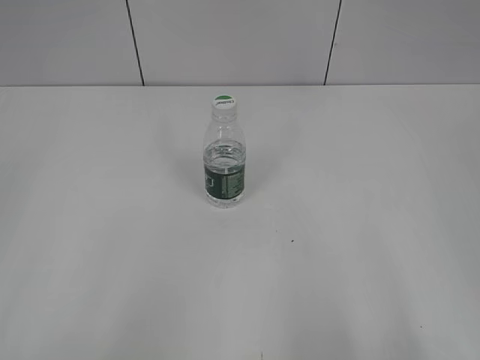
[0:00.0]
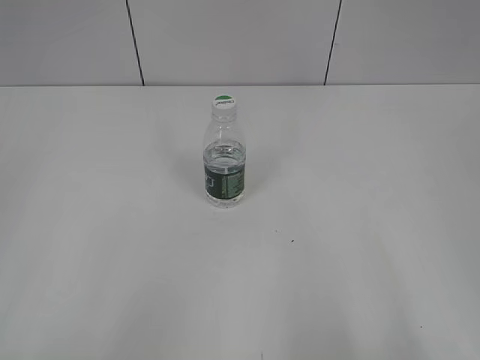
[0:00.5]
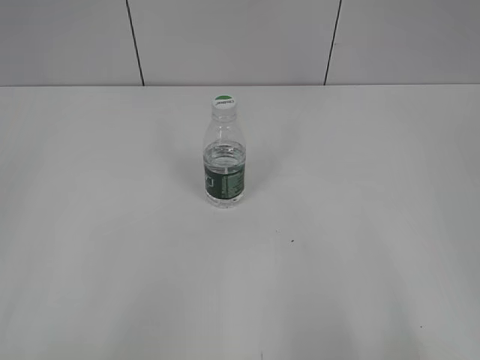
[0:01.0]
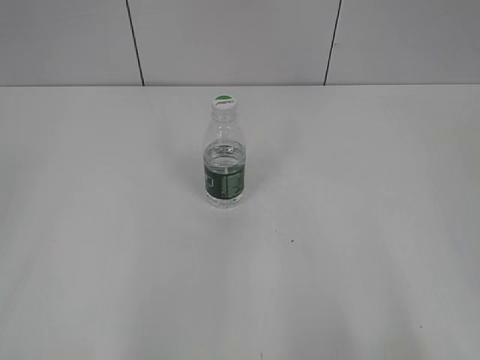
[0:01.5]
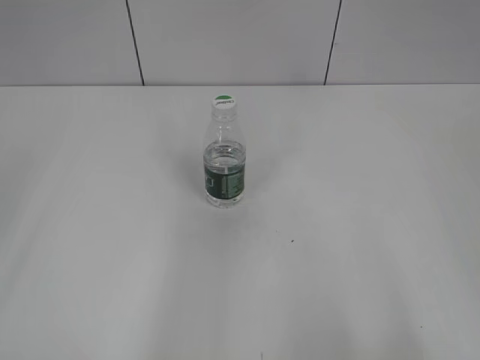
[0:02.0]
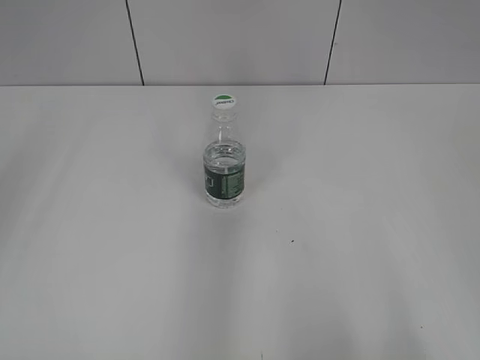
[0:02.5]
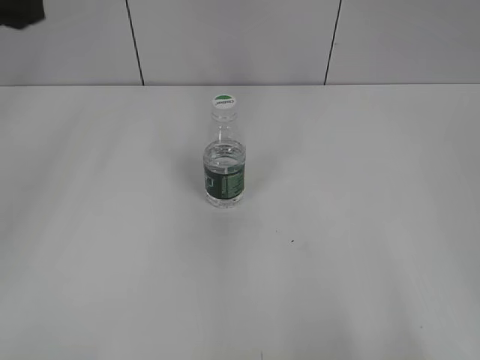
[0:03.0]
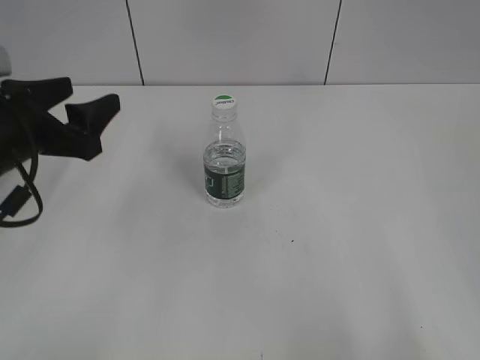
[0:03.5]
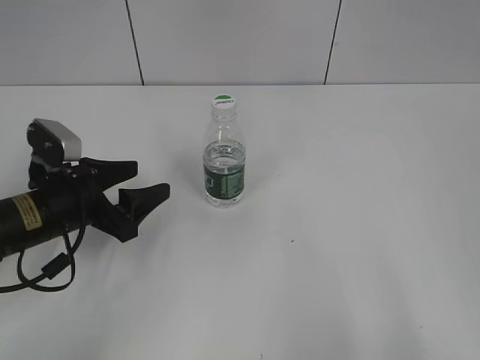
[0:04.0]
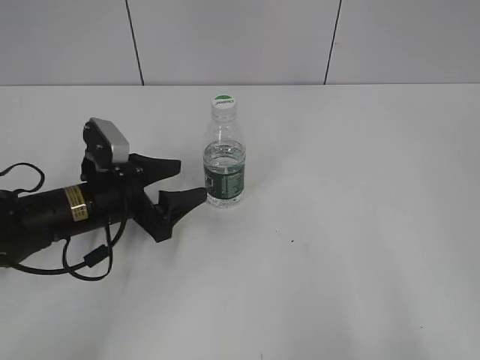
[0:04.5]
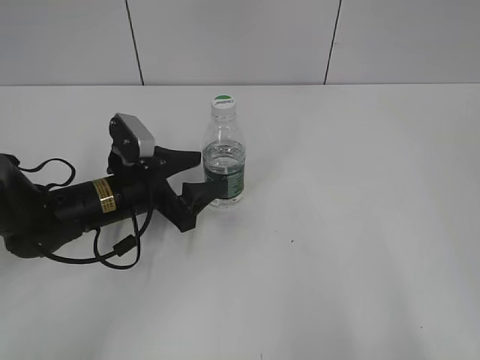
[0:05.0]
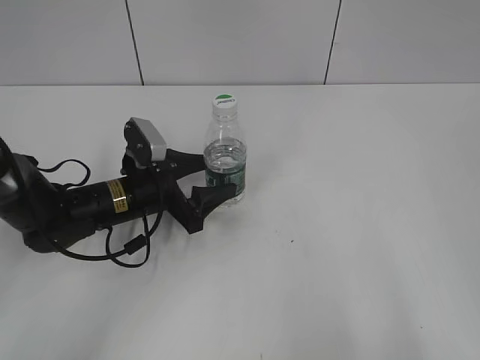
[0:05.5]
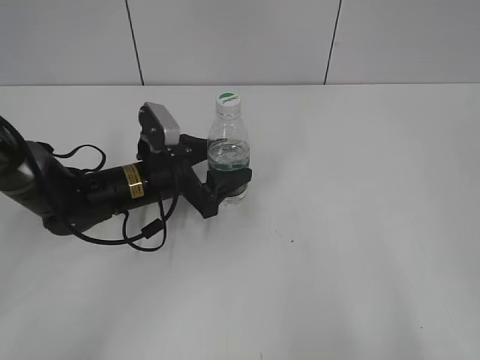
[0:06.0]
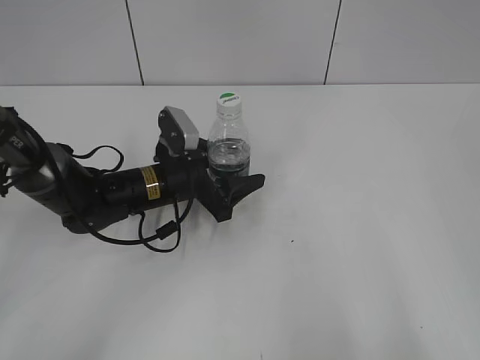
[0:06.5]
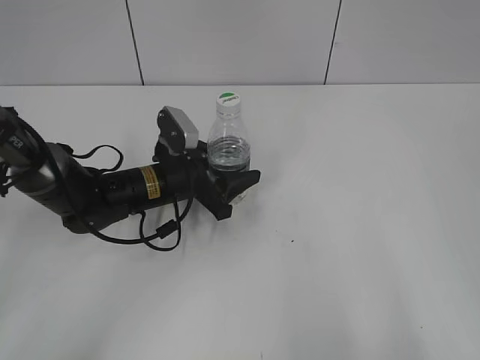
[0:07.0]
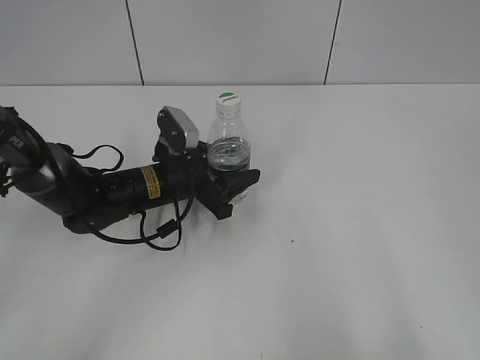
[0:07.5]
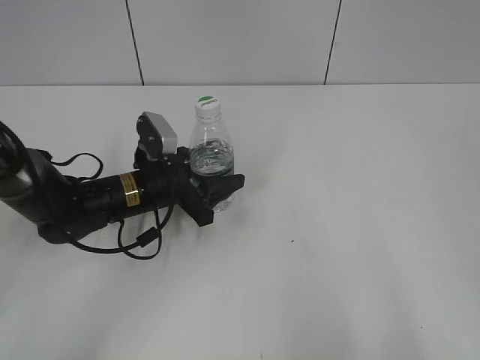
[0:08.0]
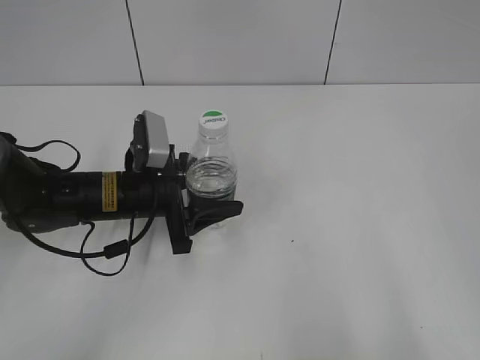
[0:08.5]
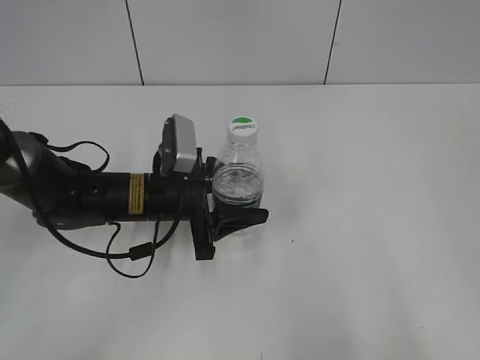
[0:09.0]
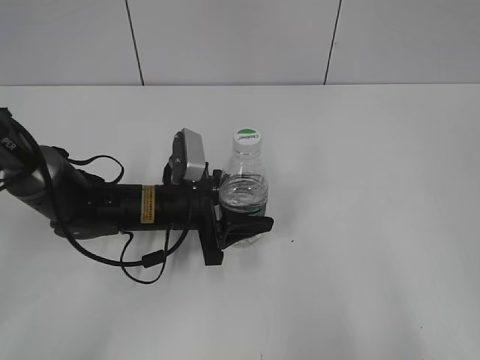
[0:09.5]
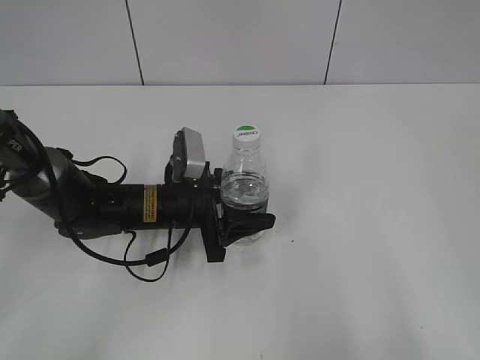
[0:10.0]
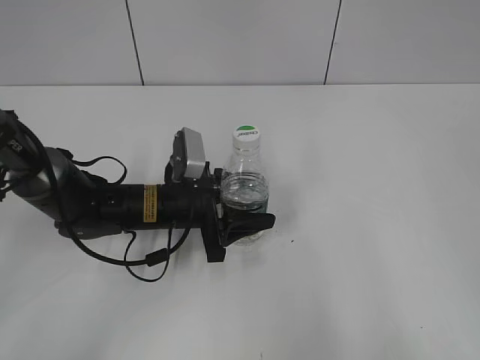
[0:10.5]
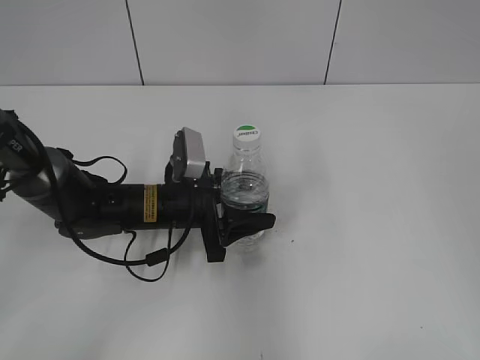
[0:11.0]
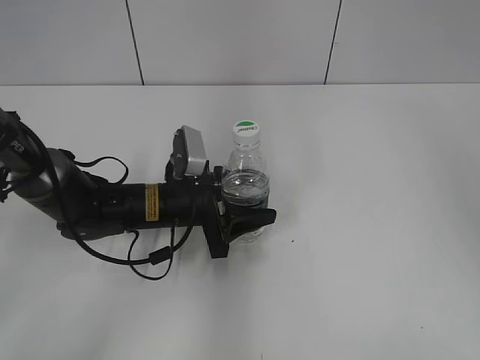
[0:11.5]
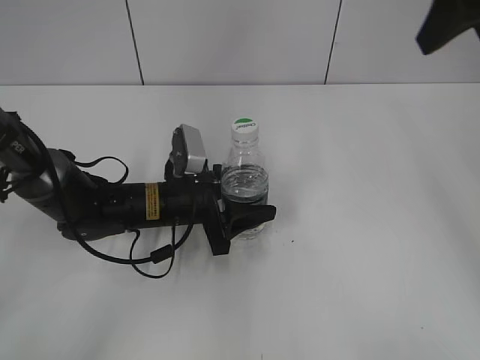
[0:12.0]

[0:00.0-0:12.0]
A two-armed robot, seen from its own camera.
Step, 0:00.0 to 0:07.0: Grasp the bottle and move it to the center of the table with the left gripper.
0:02.0 to 0:04.0: The left gripper is displaced downward and forward by about 35 cm.
0:04.0 to 0:06.0: The left gripper moves to the right and forward, approximately 10 cm.
0:06.0 to 0:08.0: The left gripper closes its fingers.
0:10.0 to 0:12.0: The right gripper moves forward, approximately 30 cm.

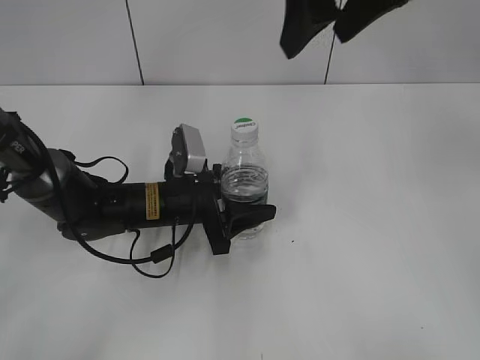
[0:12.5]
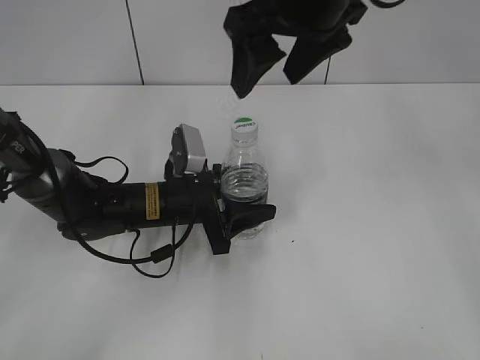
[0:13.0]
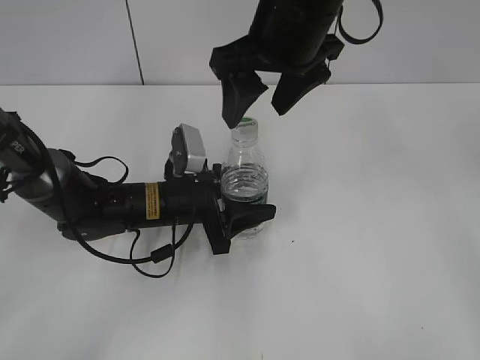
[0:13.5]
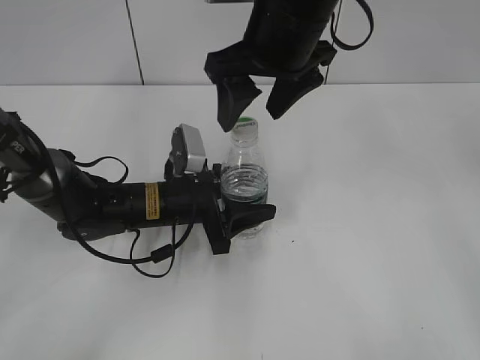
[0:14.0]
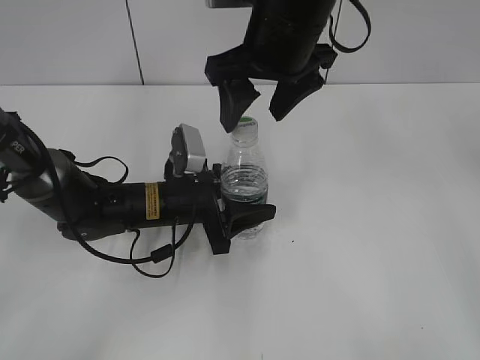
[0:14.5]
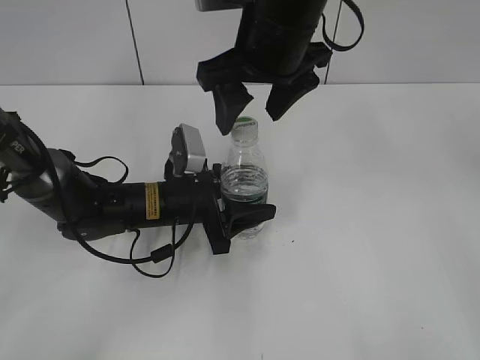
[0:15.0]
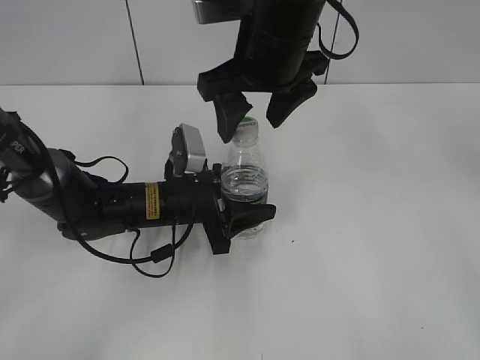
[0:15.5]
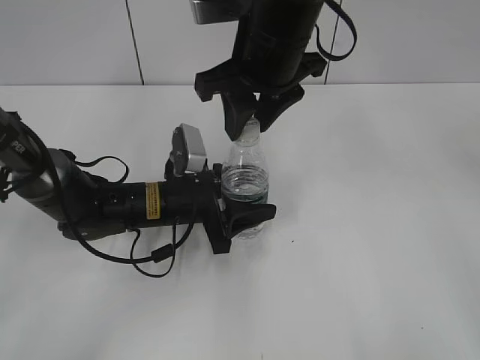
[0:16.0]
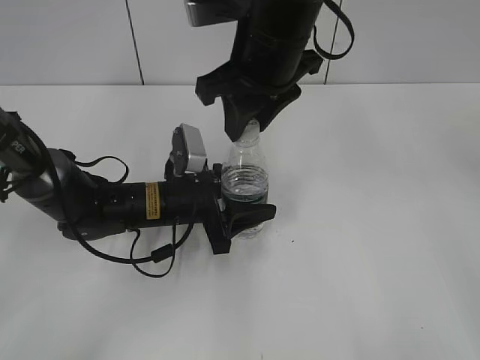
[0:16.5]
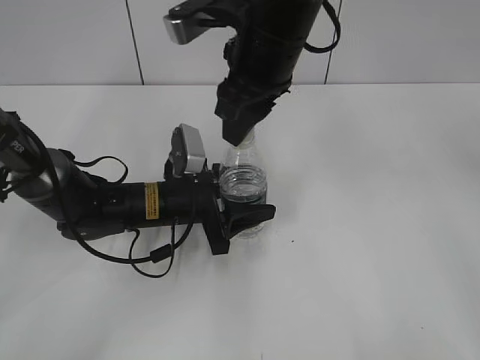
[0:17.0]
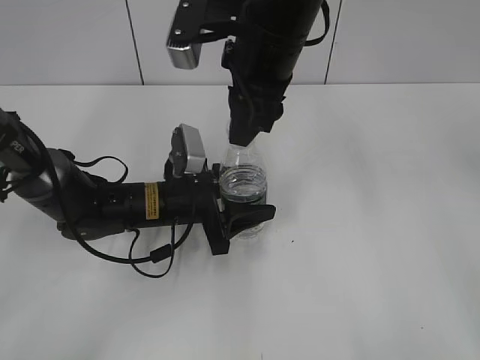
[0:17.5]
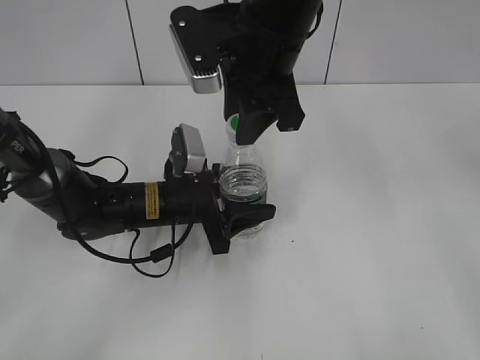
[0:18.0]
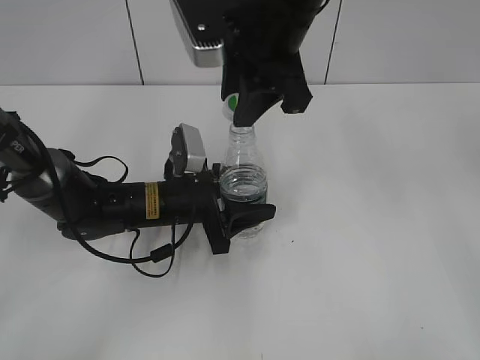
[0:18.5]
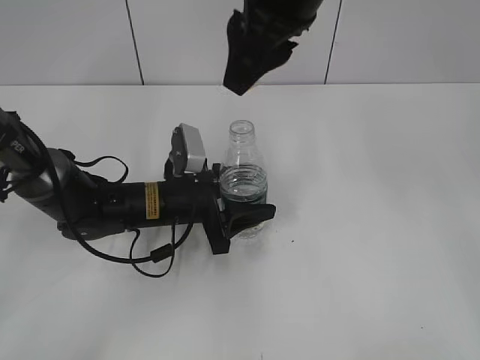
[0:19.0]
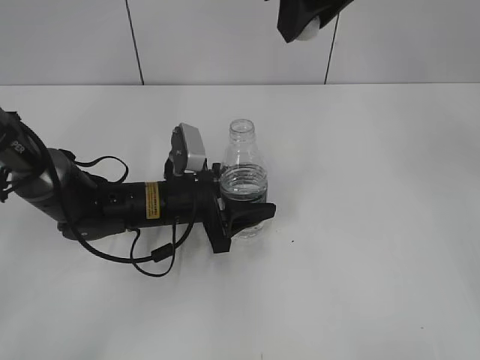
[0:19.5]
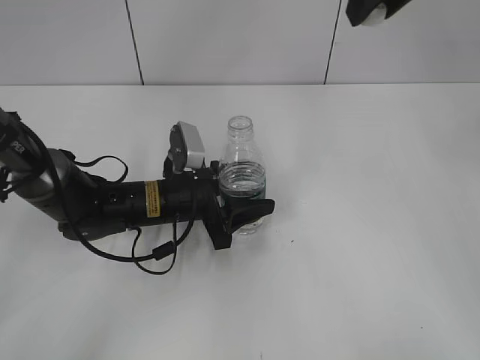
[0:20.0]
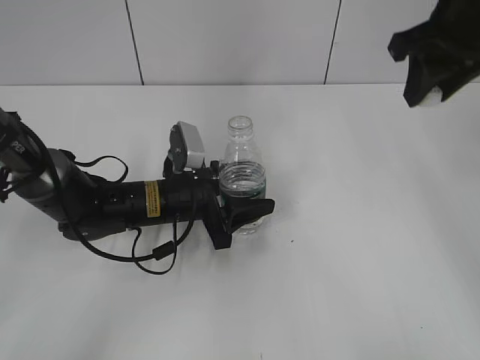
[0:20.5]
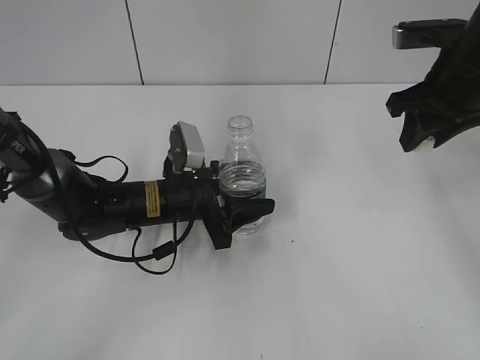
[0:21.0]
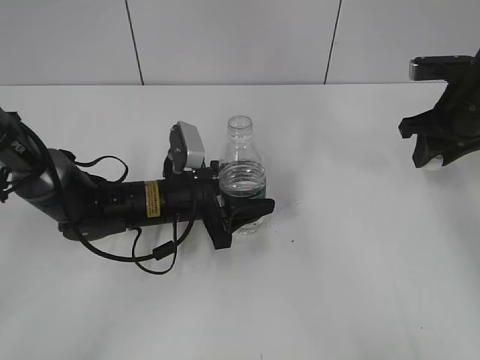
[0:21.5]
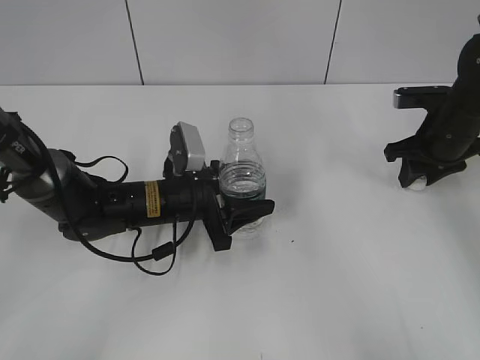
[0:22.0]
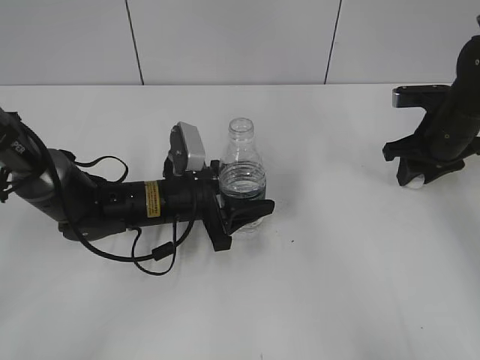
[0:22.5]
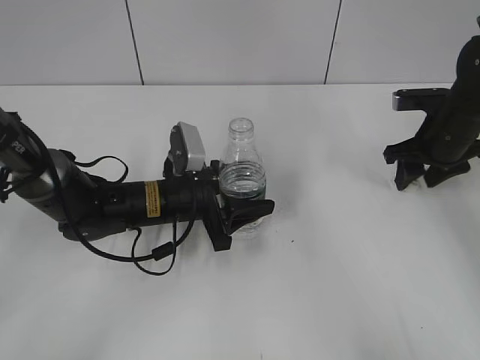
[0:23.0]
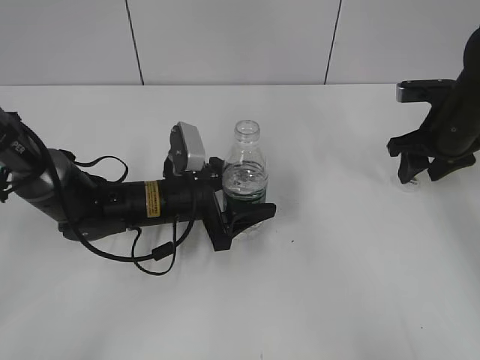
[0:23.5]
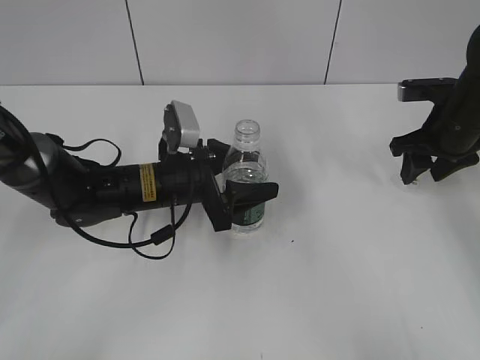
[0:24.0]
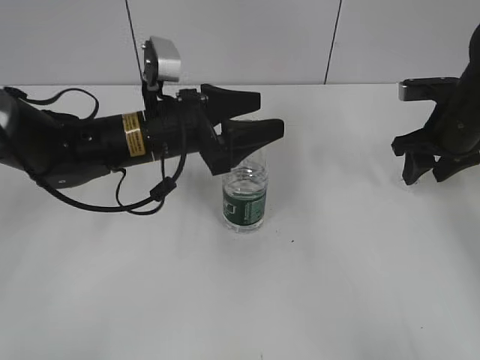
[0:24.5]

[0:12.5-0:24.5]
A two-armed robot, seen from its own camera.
Step, 0:13.0 to 0:18.5: Unscrew the bottle cap with the right gripper while holding the bottle with the left gripper.
Step, 0:19.5 to 0:23.5: Place the bottle cap on the table with the right gripper.
0:12.5 to 0:14.5: The right gripper heads downward and to the left, covering about 10 cm.
0:14.5 to 0:16.5: The right gripper closes.
0:18.5 to 0:20.5: The right gripper shifts roughly 20 cm to the right.
0:20.5 to 0:22.5: The right gripper travels downward by about 20 cm.
0:22.5 to 0:24.5: The right gripper opens its fingers; the left gripper moves upward, about 10 cm, and opens.

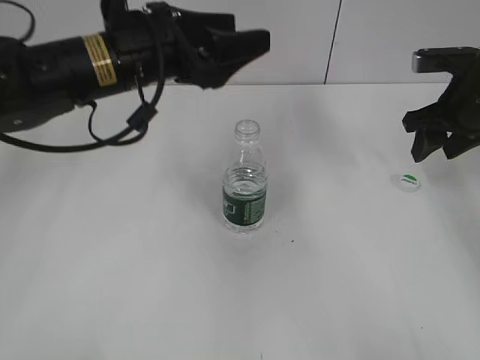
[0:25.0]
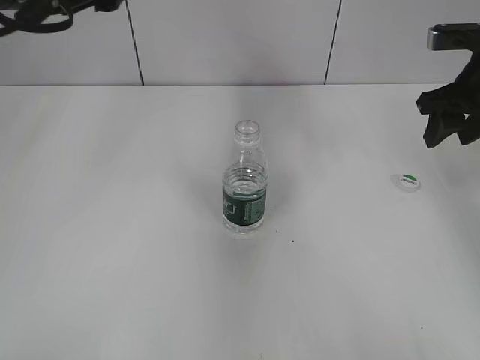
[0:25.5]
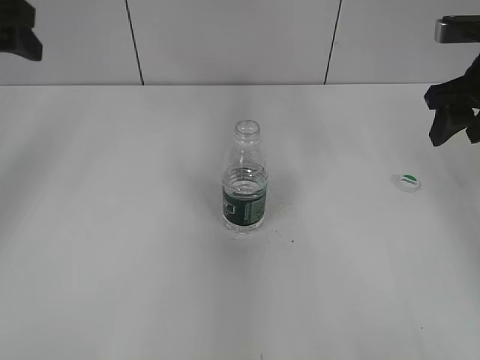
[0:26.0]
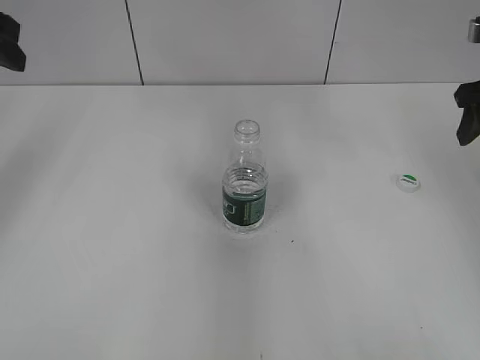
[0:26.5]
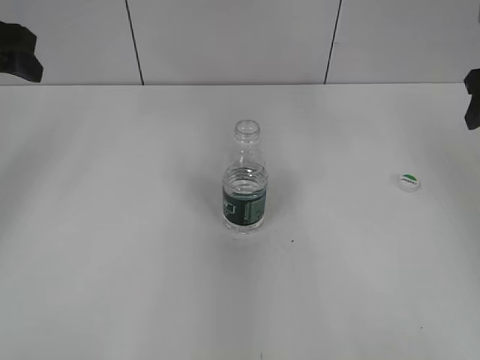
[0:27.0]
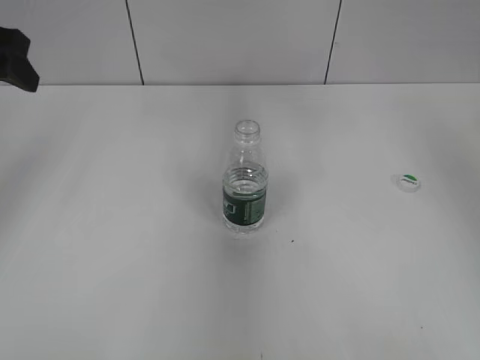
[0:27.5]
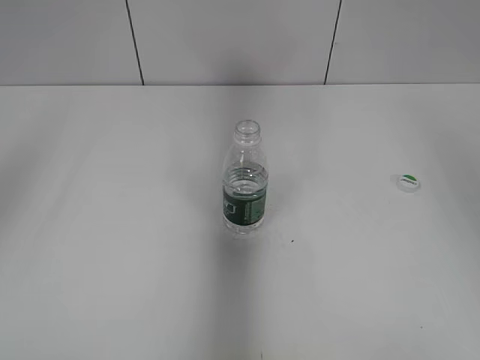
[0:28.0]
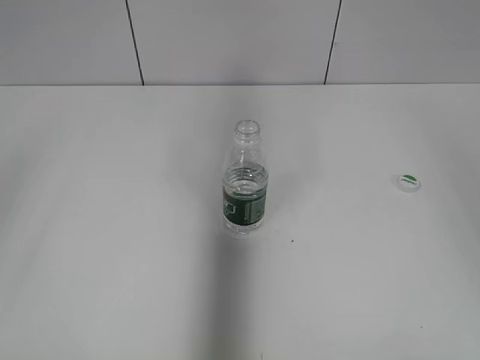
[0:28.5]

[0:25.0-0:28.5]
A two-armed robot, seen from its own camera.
0:25.0 to 0:27.0: The left gripper shifts roughly 20 cm to the left, while the right gripper moves upward, some 5 cm.
0:27.0 to 0:28.5: The two grippers go about 20 cm backward and upward.
